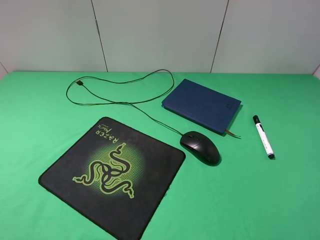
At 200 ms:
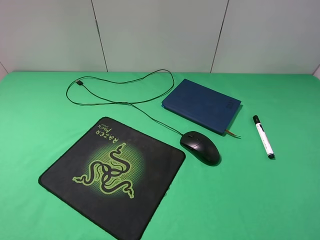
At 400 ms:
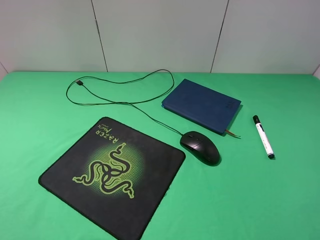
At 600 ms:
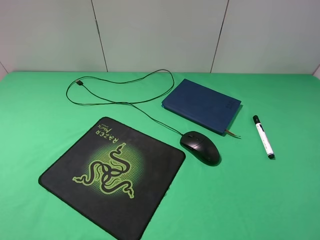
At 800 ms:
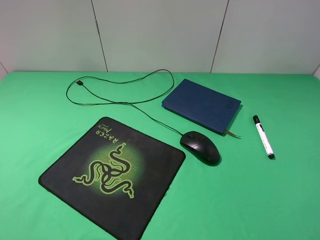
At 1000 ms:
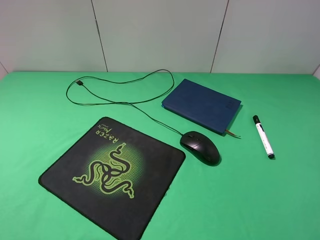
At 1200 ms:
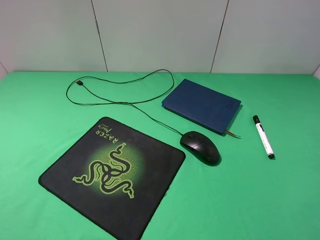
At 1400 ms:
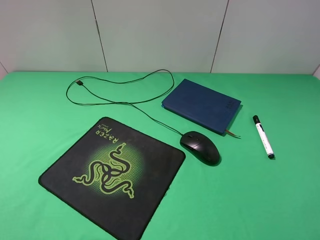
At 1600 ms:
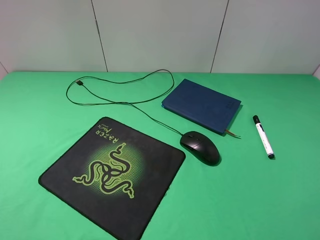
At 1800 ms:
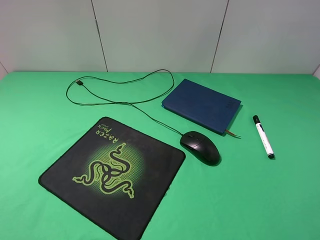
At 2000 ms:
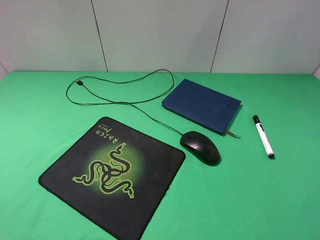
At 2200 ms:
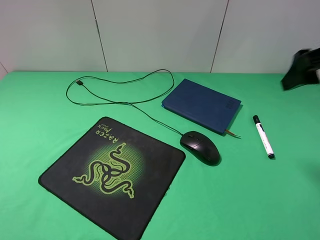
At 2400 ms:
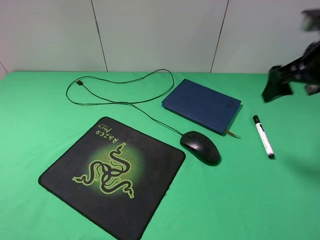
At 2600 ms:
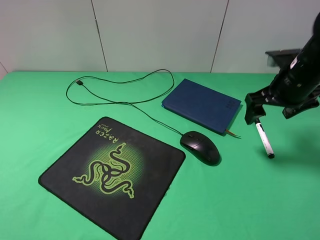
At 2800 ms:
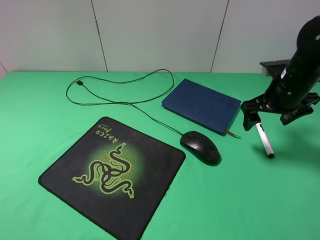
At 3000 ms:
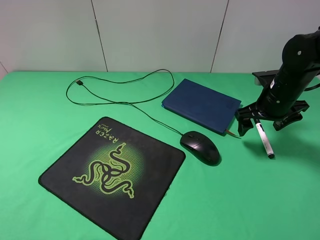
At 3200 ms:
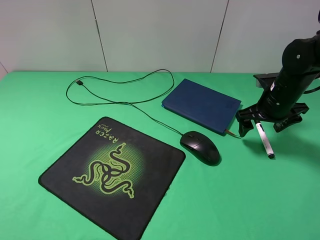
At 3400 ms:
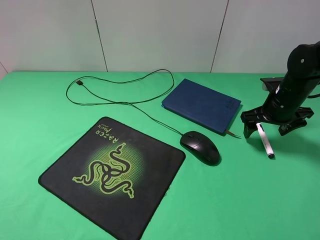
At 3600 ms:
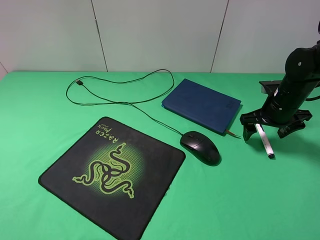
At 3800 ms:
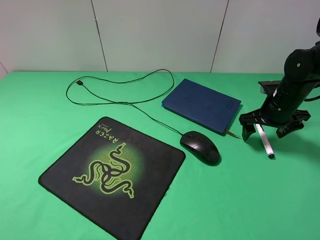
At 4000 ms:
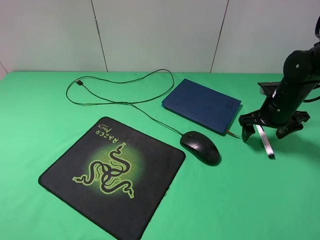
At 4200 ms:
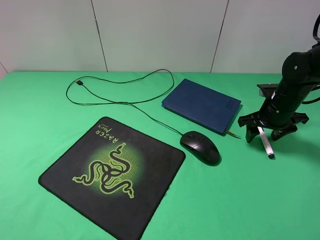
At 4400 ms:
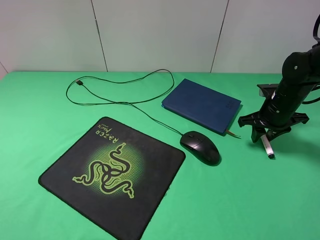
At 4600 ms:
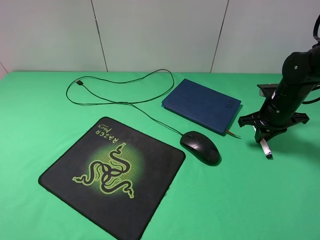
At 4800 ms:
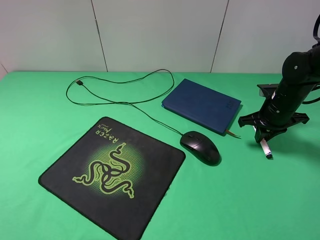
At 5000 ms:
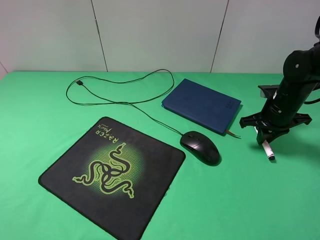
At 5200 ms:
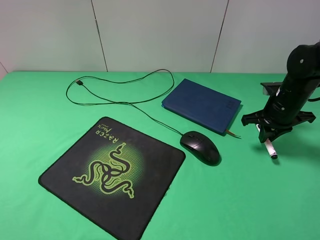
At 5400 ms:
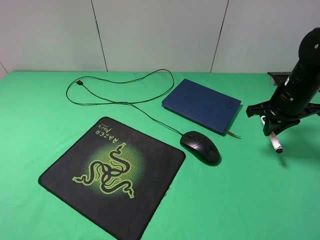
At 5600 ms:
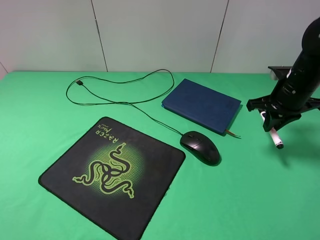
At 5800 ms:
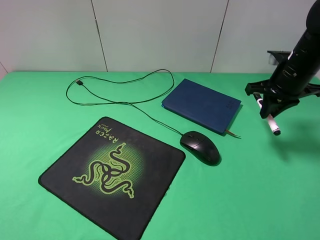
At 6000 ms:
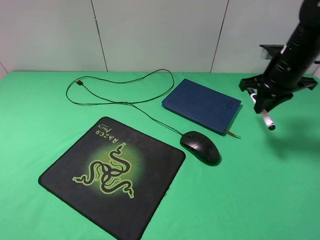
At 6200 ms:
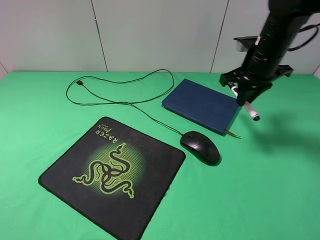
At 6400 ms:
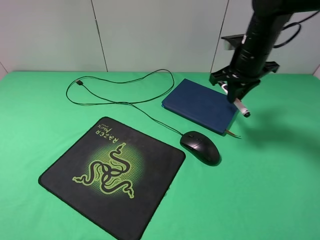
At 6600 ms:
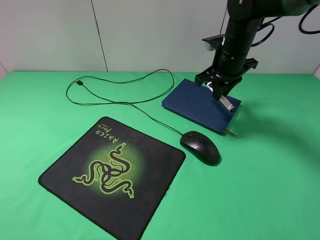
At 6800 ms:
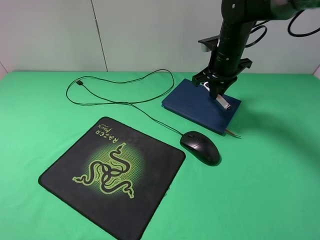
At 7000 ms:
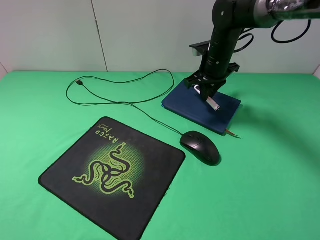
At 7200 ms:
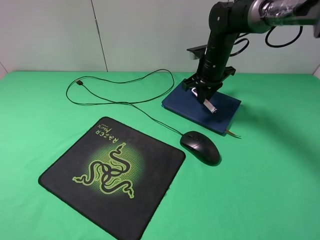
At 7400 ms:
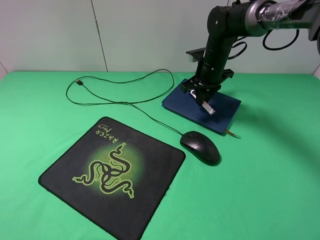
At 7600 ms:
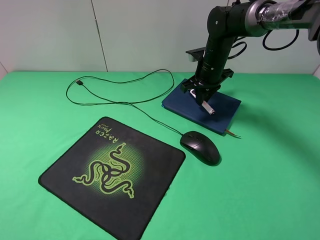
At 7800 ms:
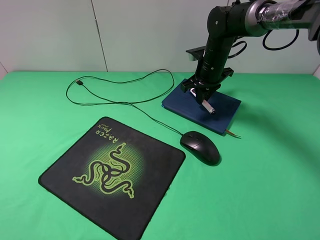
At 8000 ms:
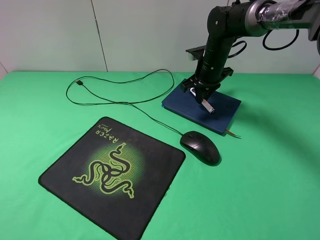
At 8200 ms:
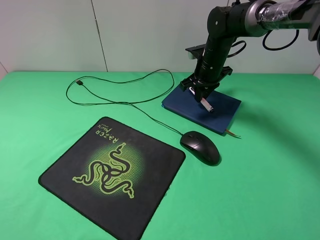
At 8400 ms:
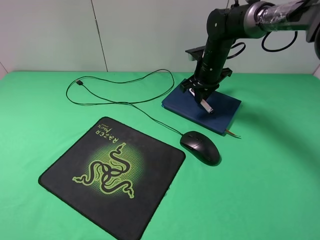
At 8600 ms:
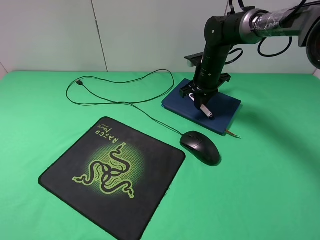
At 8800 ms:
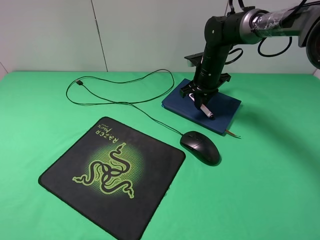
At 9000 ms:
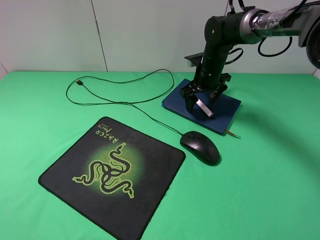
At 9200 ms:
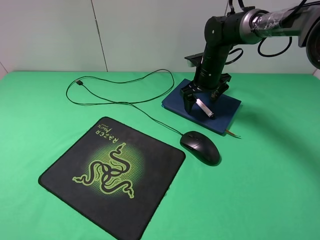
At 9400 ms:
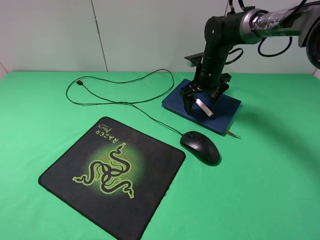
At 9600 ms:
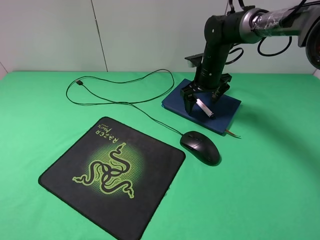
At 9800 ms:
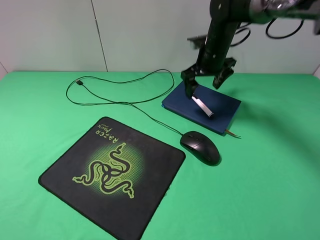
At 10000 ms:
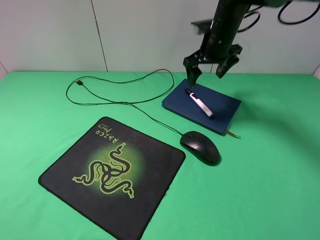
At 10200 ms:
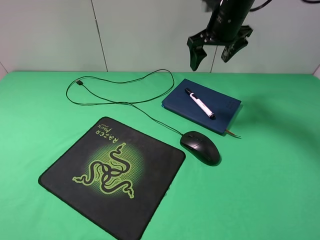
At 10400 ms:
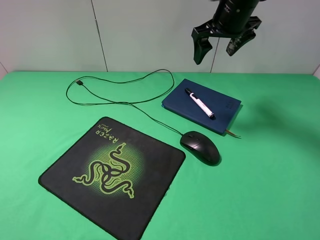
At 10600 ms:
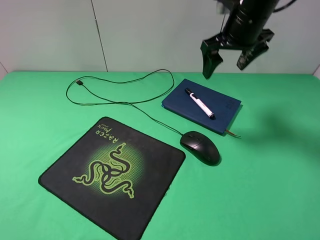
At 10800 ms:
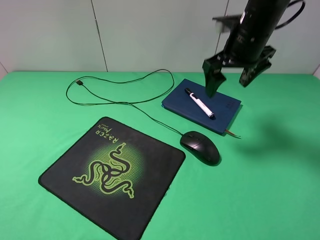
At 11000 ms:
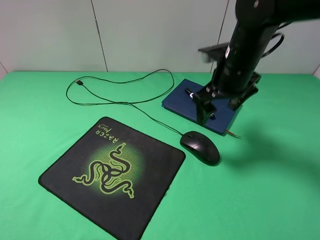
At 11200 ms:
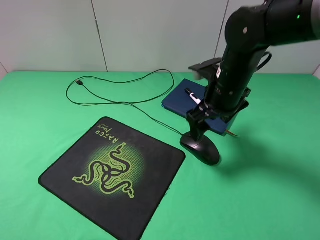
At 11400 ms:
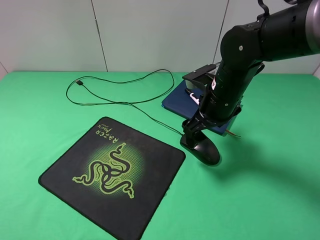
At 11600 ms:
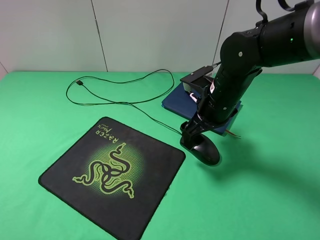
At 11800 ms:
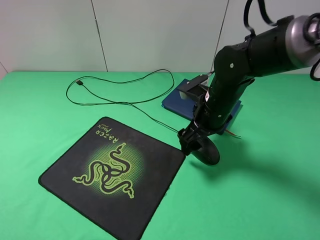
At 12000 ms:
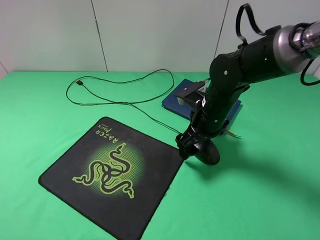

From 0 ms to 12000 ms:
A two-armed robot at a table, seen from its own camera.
Step, from 0 ms to 4800 ms: Grasp the marker with the right gripper.
Step, from 5000 ms to 9200 ms: Place the marker on the notebook with the right gripper.
From 1600 ms to 3000 ms: The right gripper heads forward and downward, covering about 35 cm.
From 3000 ms to 4400 ms: The right gripper closes its fingers.
From 4400 ms to 6000 ms: The right gripper heads upward, covering roughly 10 cm.
From 6000 ms to 7600 ms: The right gripper is displaced to the left, forward and downward by approximately 15 cm.
From 7600 ms to 9000 ms: The right gripper opens its fingers.
From 9000 ms to 10400 ms: The right gripper is displaced upward by roughly 15 cm.
From 10400 ms to 12000 ms: The right gripper is displaced downward and backward by approximately 20 cm.

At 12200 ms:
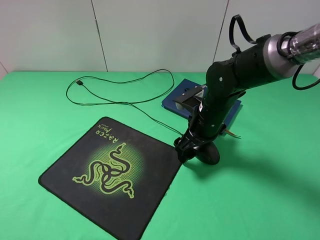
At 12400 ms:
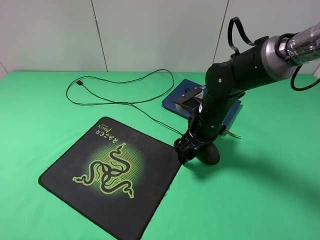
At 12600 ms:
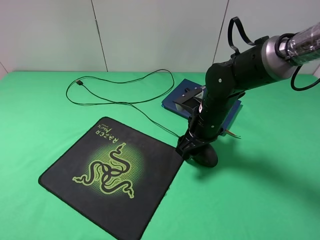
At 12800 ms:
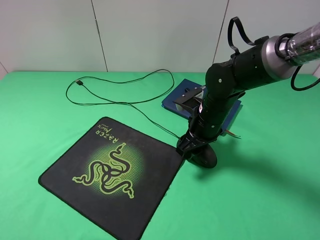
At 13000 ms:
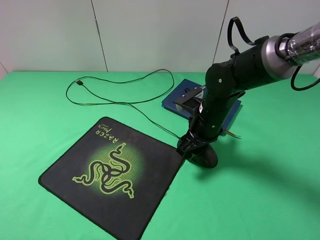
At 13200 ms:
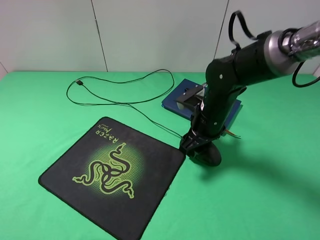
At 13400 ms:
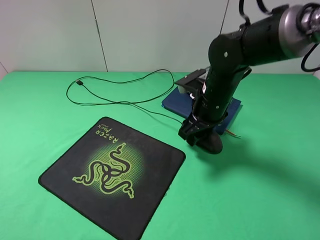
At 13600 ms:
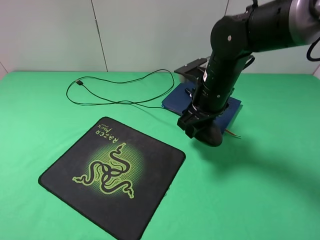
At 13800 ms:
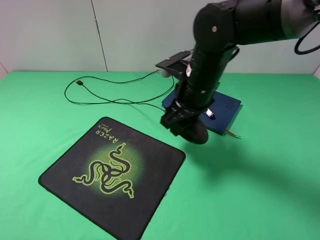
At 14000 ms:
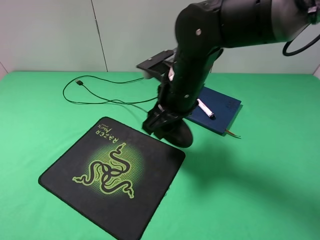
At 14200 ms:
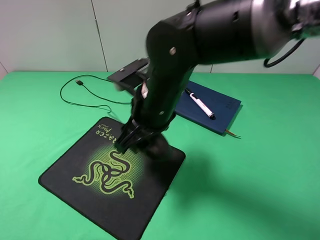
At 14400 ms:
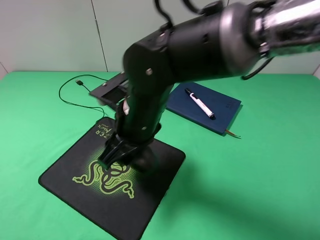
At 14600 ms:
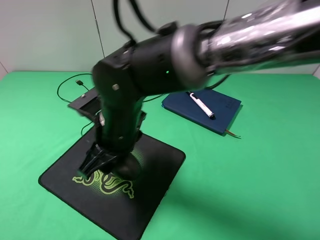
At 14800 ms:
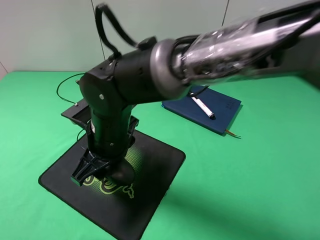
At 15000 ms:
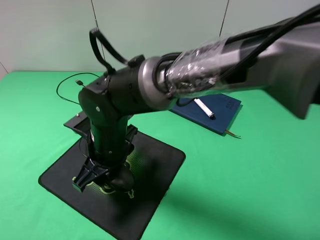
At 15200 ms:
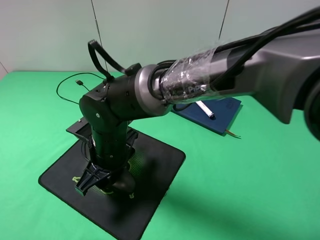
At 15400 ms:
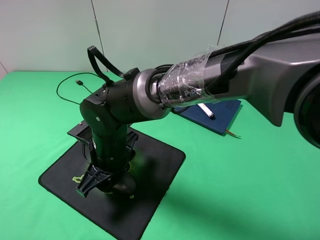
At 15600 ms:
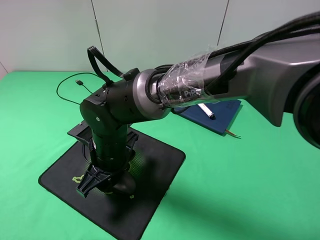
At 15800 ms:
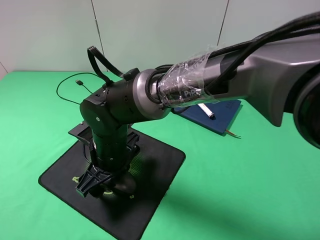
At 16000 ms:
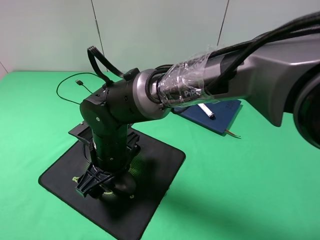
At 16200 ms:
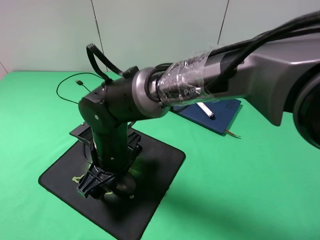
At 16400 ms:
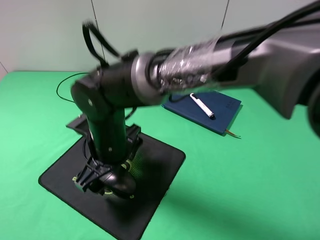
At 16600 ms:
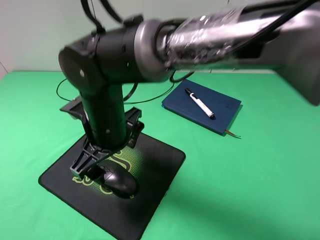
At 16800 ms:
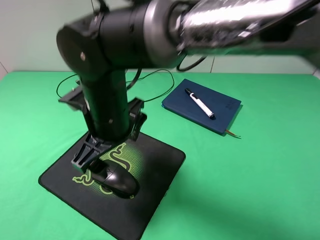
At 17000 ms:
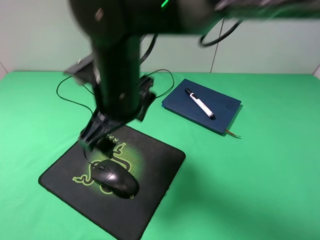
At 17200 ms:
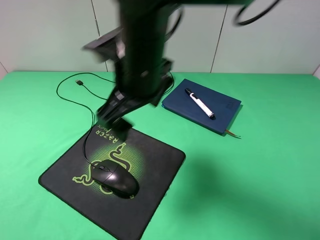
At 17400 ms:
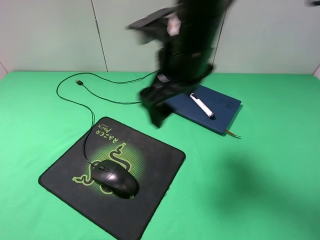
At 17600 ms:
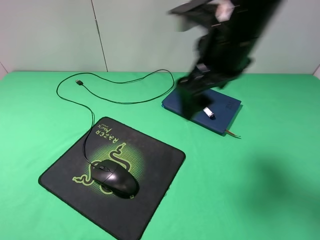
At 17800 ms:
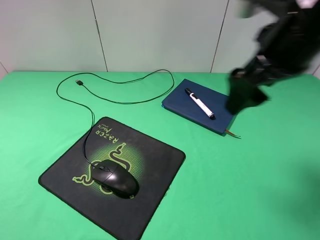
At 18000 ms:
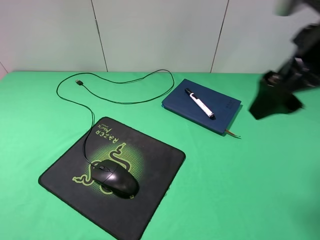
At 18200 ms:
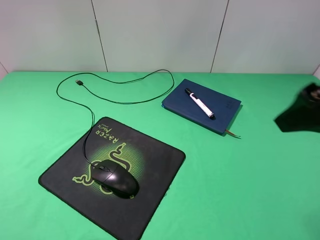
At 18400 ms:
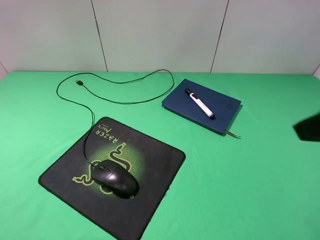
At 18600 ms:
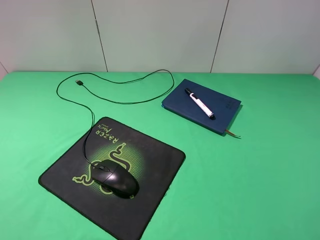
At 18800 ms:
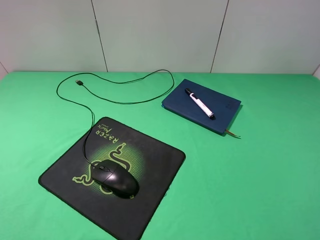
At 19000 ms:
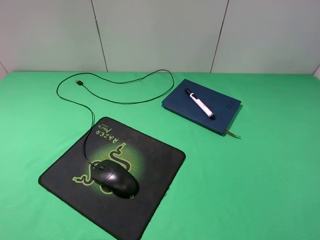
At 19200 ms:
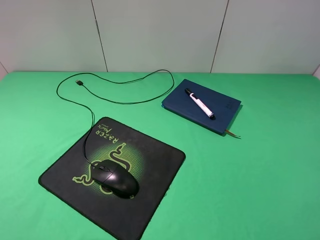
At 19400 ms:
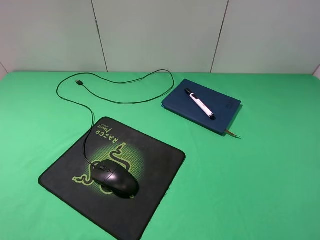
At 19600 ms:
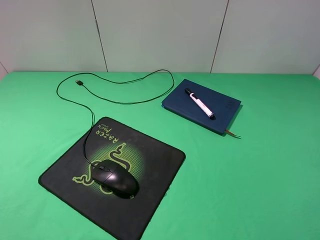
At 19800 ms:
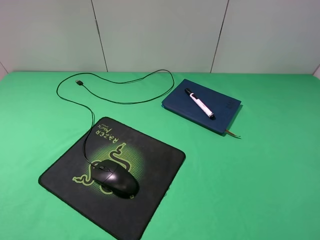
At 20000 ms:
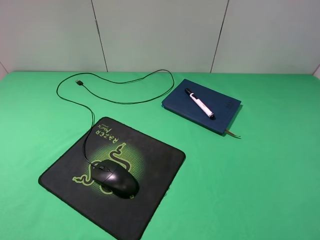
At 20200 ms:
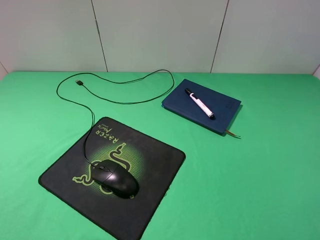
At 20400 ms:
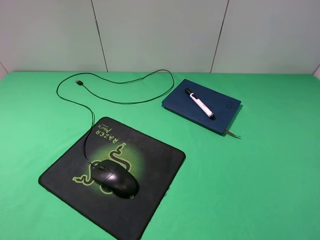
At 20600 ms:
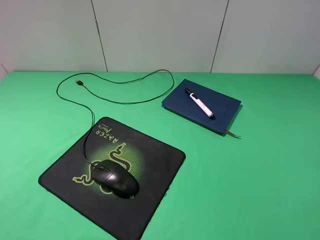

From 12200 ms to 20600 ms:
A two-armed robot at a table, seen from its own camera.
Step, from 13200 ms to 16000 ms: Place the mouse on the mouse pad with the right gripper.
From 12200 ms to 13600 ms: The right gripper travels upward by some 5 cm, and closes up.
From 13600 ms to 15000 ms: The right gripper moves to the left and backward, approximately 20 cm.
From 15000 ms to 16400 ms: The right gripper opens up.
From 16400 ms to 17800 ms: The right gripper is displaced to the right and upward by approximately 30 cm.
From 17800 ms to 19200 ms: The right gripper moves backward and to the right, about 25 cm.
From 19200 ms to 20600 ms: Neither gripper changes place.
